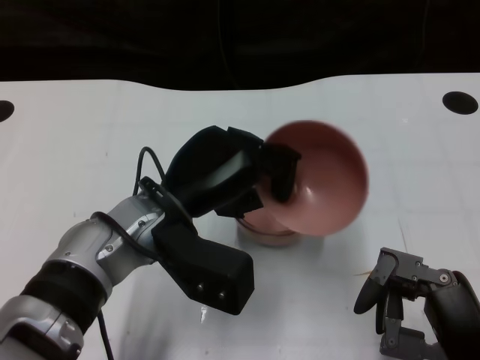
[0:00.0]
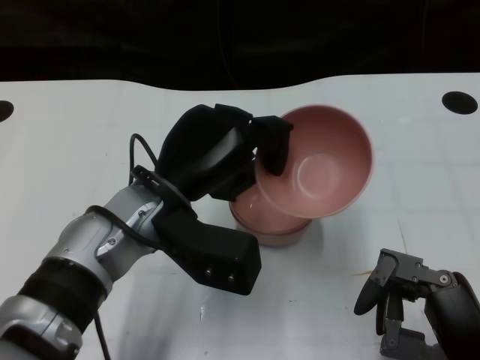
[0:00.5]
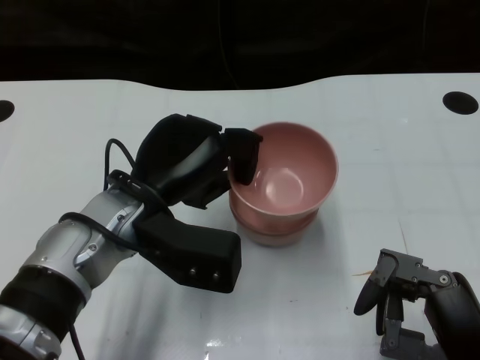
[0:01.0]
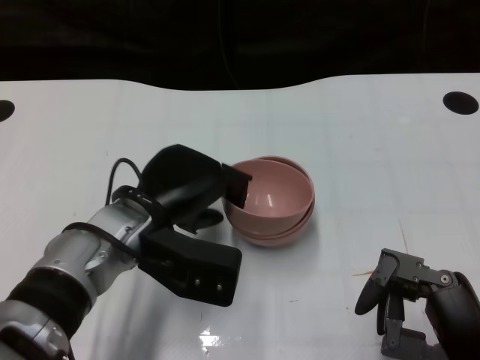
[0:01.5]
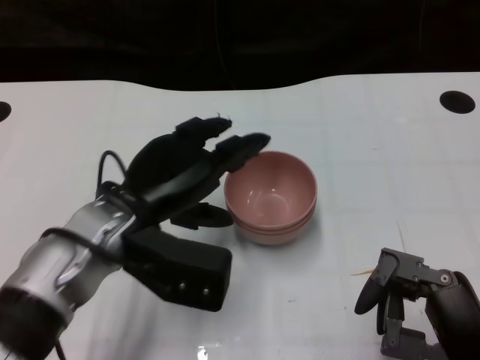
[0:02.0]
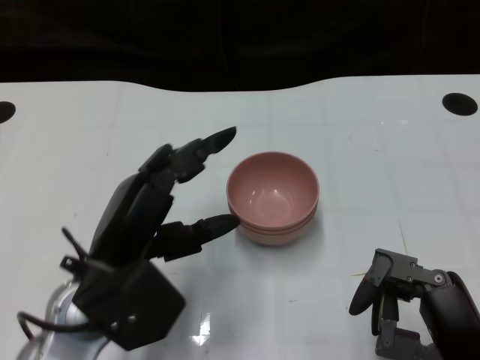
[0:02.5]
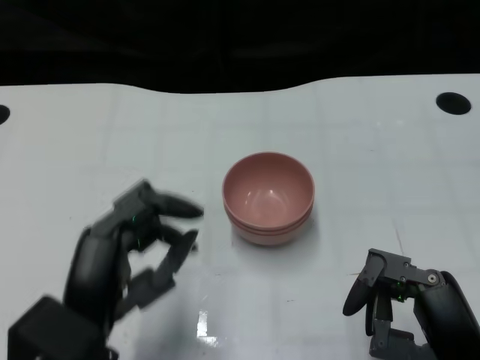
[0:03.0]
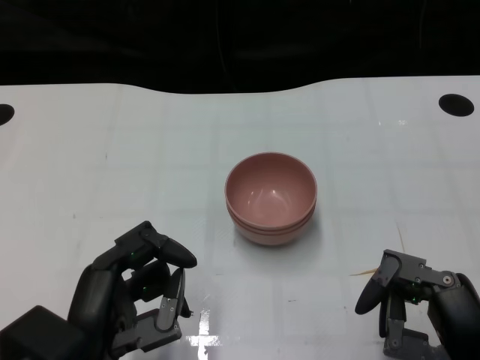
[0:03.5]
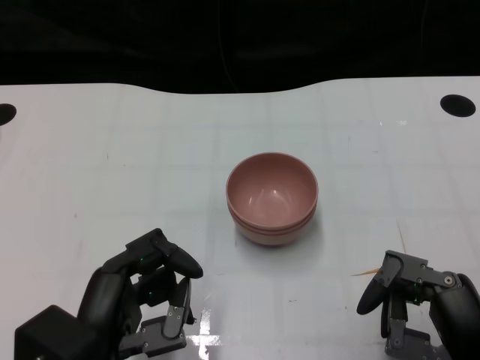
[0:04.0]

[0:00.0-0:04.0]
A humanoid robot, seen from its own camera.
Task of the whole recording: Pick up the bowl on one side of the table and place it on top of the middle bowl, then pick up the bowl on the other side of the table and place it on top of the middle bowls.
Step, 0:00.0 to 0:02.0: Place the bowl on the left onto the bowl in the middle with left gripper.
0:02.0 to 0:04.0: The left hand goes some 15 cm backward.

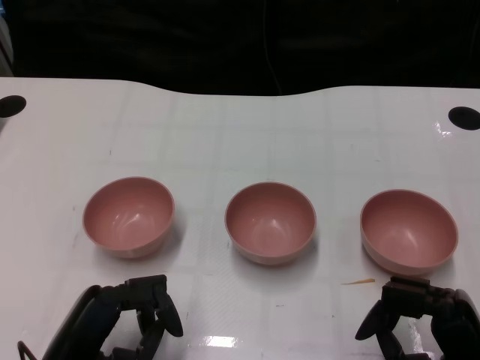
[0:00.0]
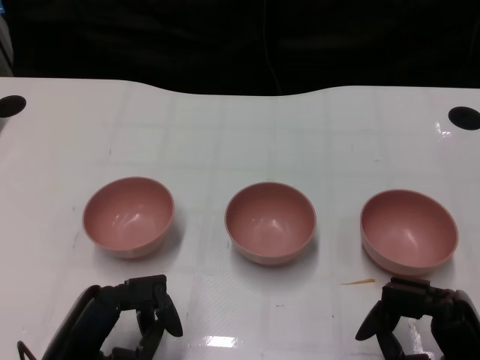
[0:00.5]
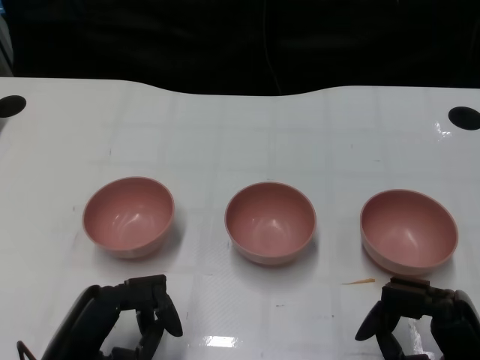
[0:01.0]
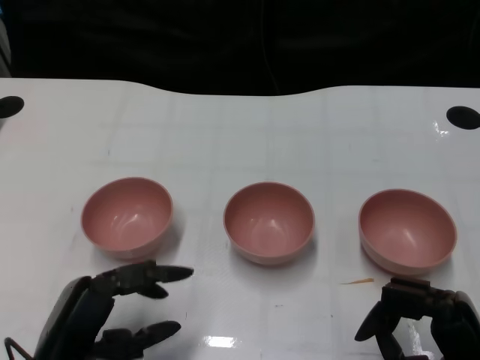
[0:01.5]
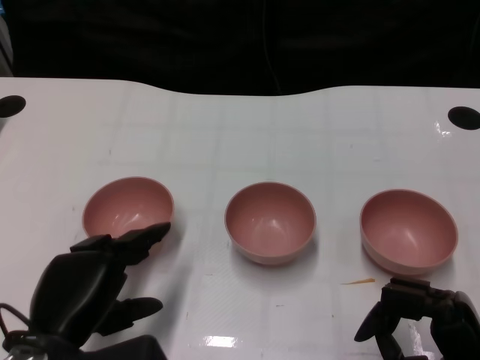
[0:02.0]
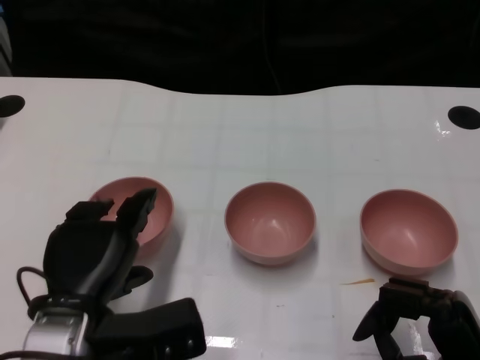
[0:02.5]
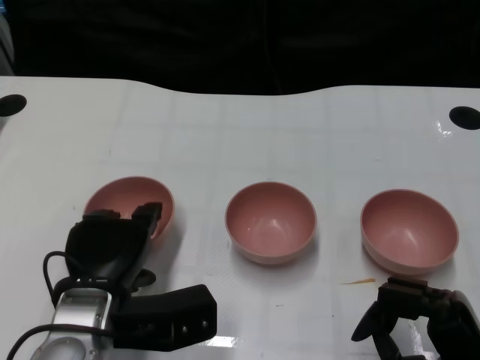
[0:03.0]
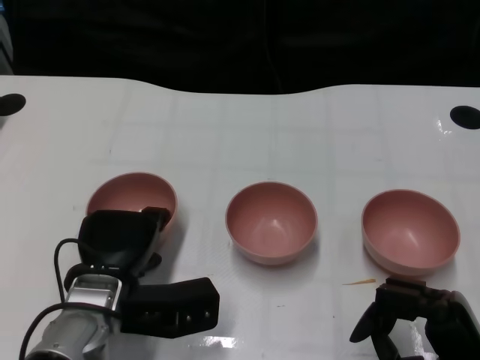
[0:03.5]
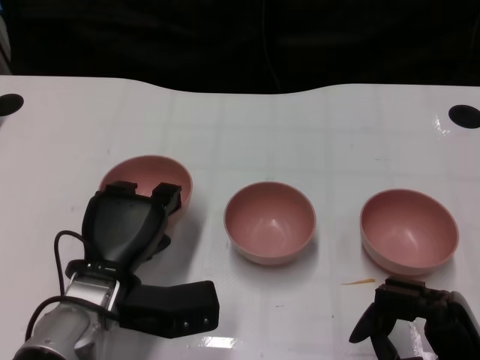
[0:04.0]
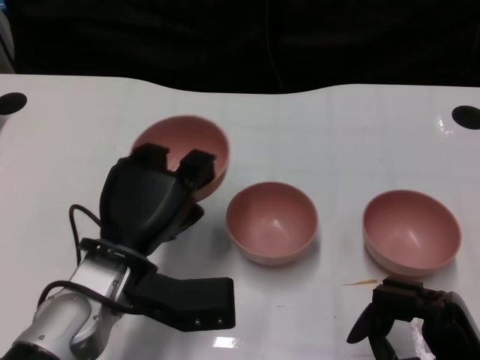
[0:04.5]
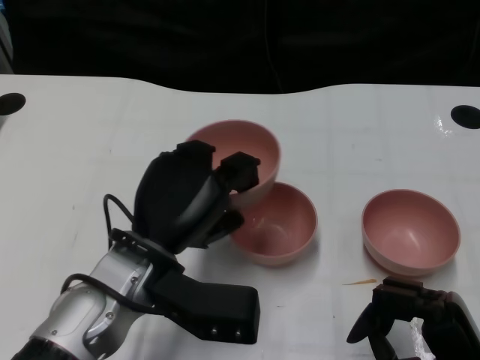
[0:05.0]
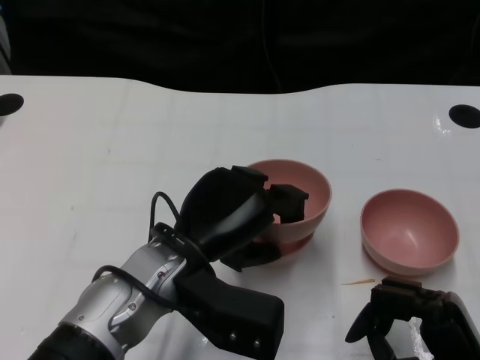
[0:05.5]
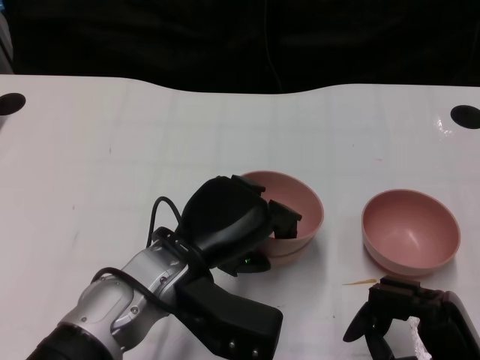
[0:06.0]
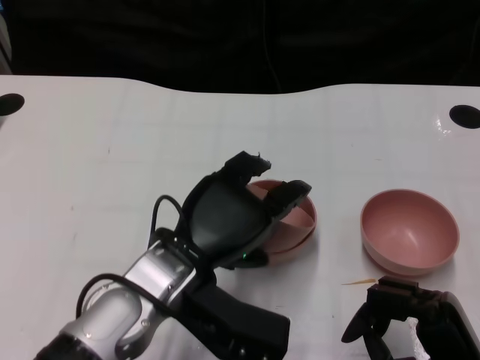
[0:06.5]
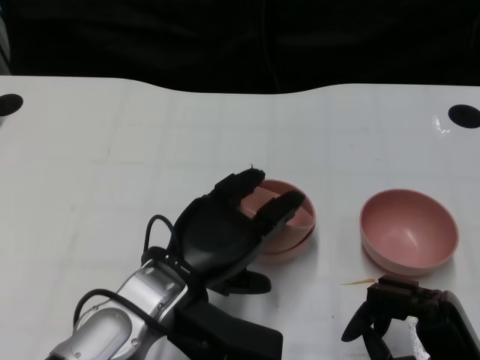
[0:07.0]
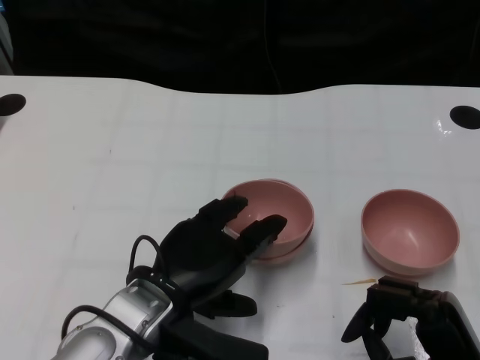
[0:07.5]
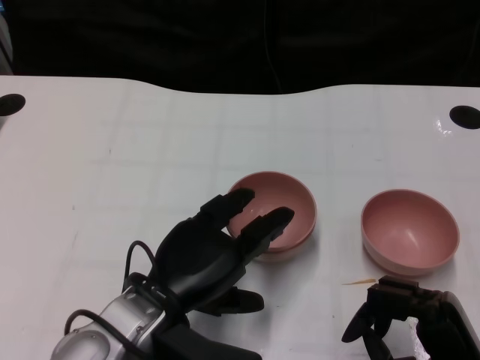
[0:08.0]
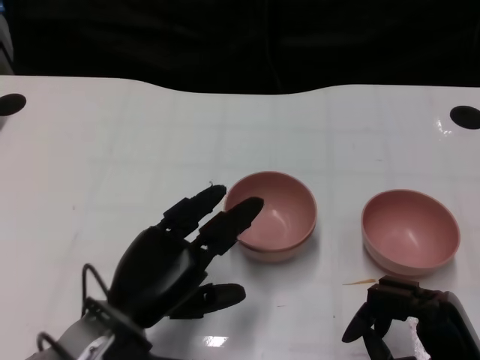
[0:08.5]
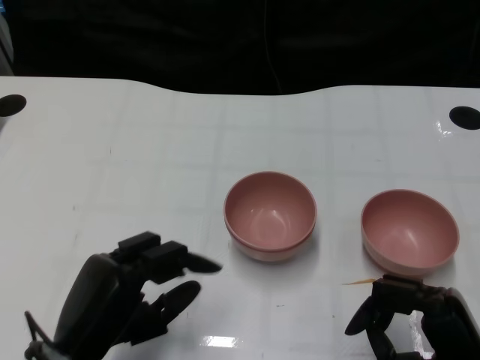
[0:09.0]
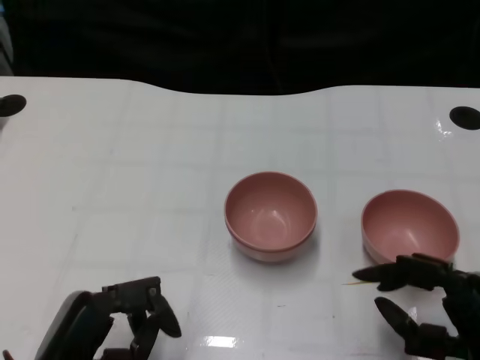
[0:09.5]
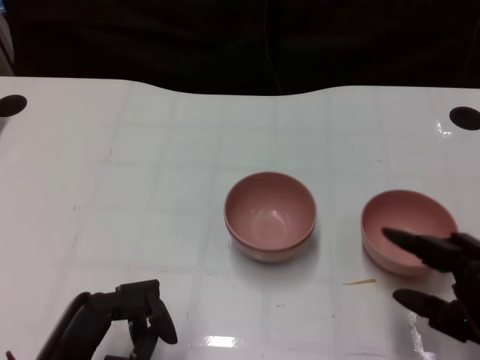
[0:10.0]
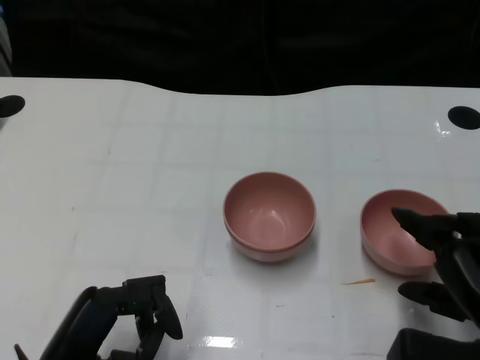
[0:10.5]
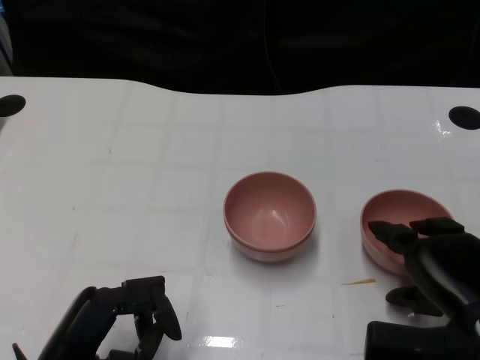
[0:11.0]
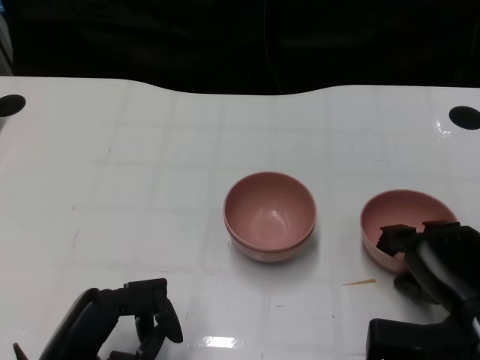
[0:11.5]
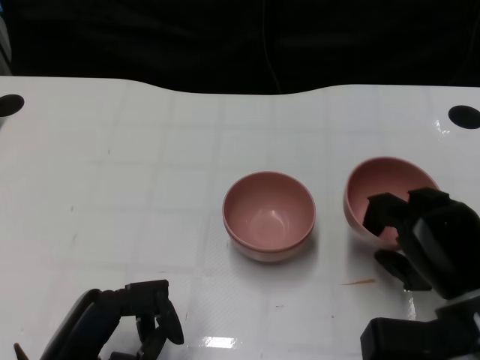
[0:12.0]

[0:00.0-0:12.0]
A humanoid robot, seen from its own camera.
Task of the whole recording: Pick up the bowl on one side of the table and place it on top of the middle bowl, then pick up the bowl on the other side of the table and place it on top of the middle bowls.
Step, 0:01.5 to 0:03.5: Grasp the bowl on the left with the left gripper.
Step, 0:04.0 to 0:08.0: Place the bowl on the left onto the bowl in the middle with left gripper.
Step, 0:08.5 to 0:11.5: Grasp the bowl on the right with the right gripper.
0:02.0 to 0:04.0: The left hand goes some 10 cm forward.
0:04.0 to 0:06.0: The left hand shifts some 10 cm to the right and upward.
0:06.0 to 0:08.0: The hands move only a little.
0:08.0 to 0:10.0: The right hand ends up some 5 cm from where it was; the left hand shifts approximately 10 cm to the left and backward.
0:10.0 to 0:12.0: The right hand moves forward, some 5 cm.

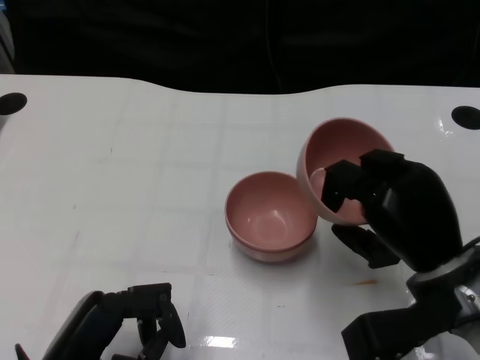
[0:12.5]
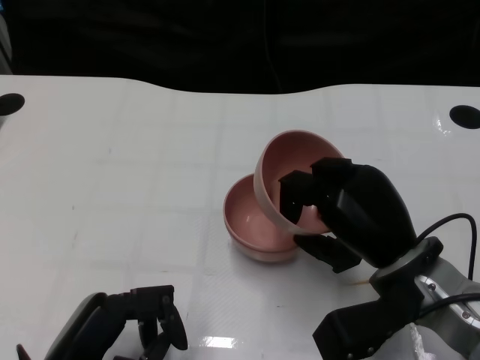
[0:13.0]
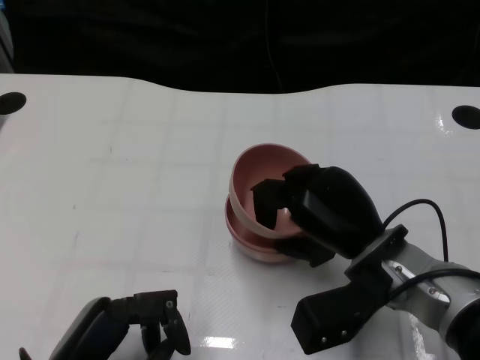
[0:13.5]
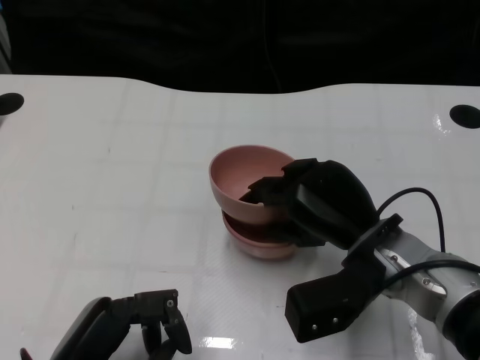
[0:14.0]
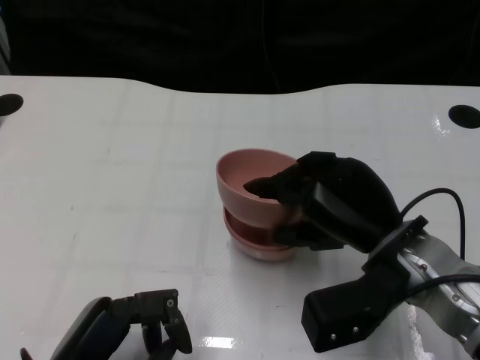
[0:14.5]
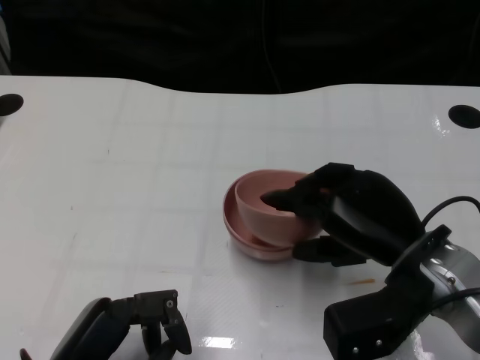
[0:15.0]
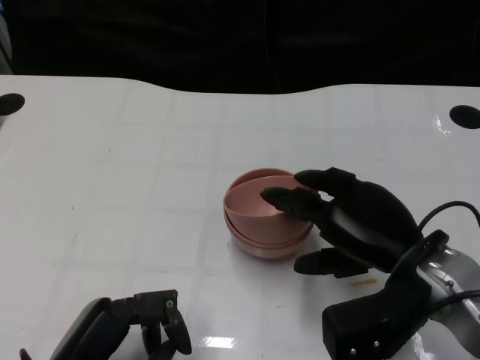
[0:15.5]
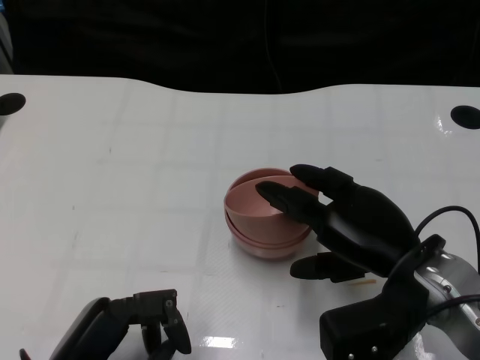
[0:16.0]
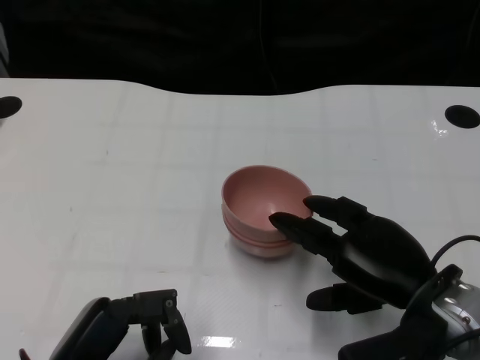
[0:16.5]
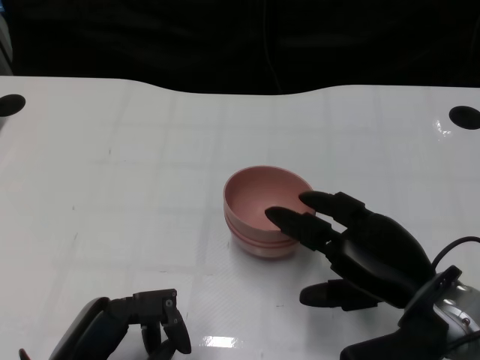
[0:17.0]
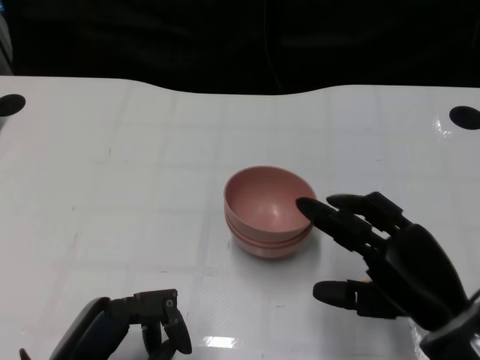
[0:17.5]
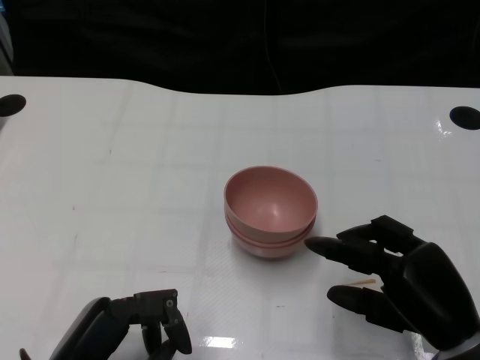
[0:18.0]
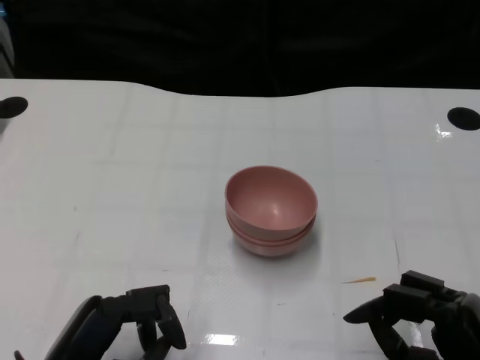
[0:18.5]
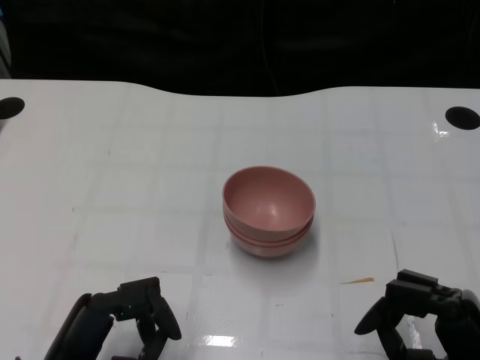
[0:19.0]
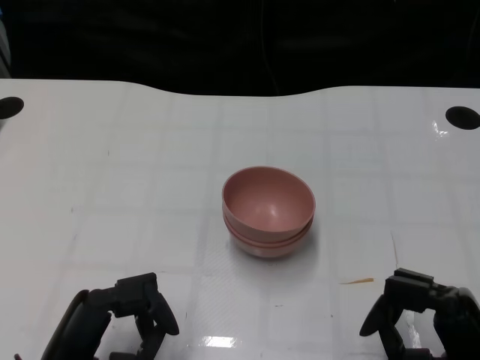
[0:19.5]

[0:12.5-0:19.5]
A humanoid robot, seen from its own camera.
Task of the whole recording: Pick up the bowl on one side of the table and place it on top of the middle bowl, then pick up the bowl on the other side of the table and place it on top of the middle bowls.
Step, 0:12.5 to 0:17.0: Place the bowl on the right onto the bowl in the middle with right gripper.
0:14.5 to 0:16.0: The hands make only small movements.
0:16.0 to 0:17.5: The right hand changes place by about 5 cm.
0:17.5 to 0:19.5: The right hand goes about 5 cm backward.

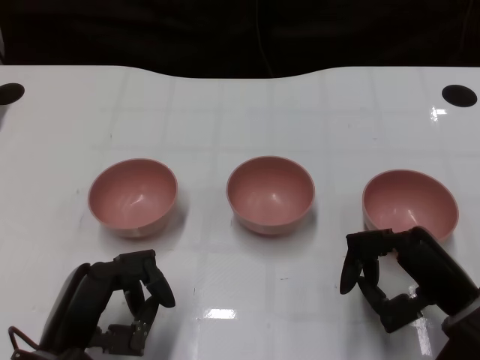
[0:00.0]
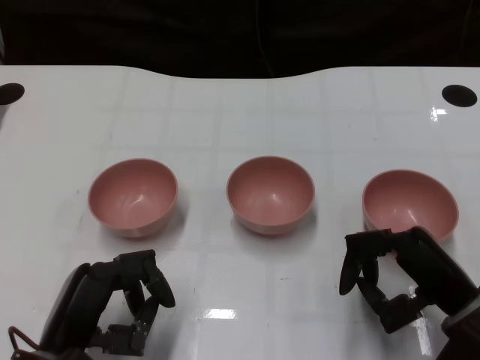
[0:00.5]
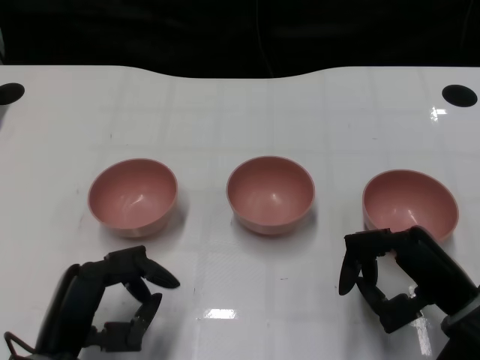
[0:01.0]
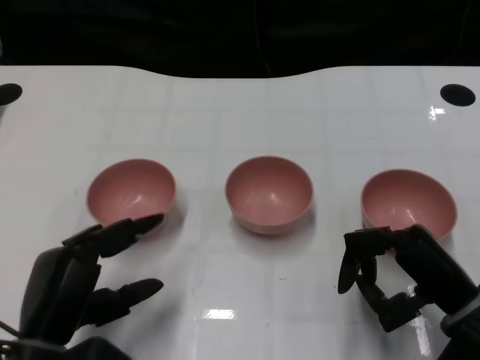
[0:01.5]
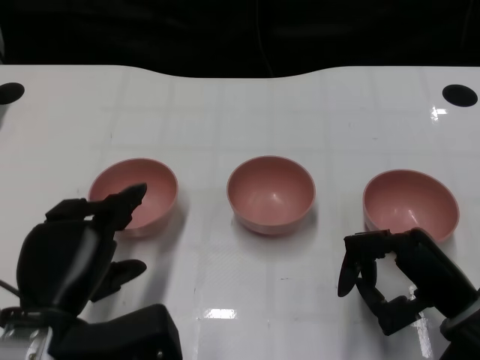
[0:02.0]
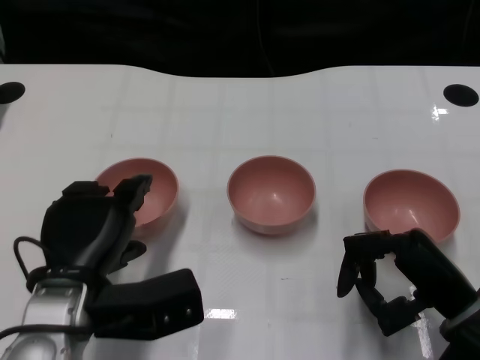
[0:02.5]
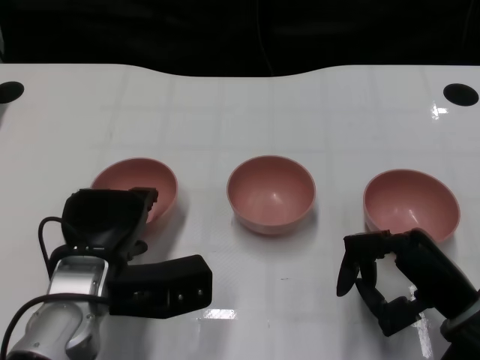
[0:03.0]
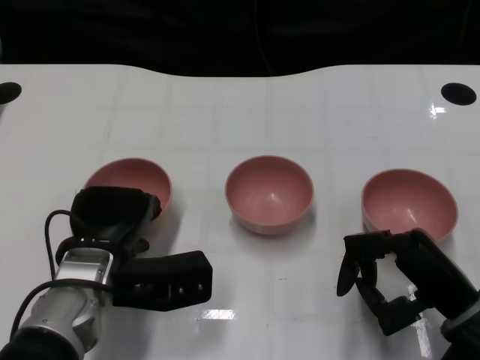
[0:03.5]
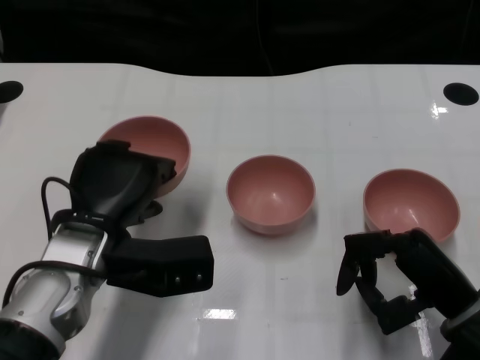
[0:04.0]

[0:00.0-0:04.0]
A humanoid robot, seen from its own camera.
Task of the whole recording: Pick up the bowl on one side of the table and place it on top of the middle bowl, then pick up the bowl on the other side of the table and place it on top of the middle bowls.
Step, 0:01.0 to 0:03.5: Grasp the bowl on the left with the left gripper.
0:02.0 to 0:04.0: The left hand goes roughly 10 cm forward.
